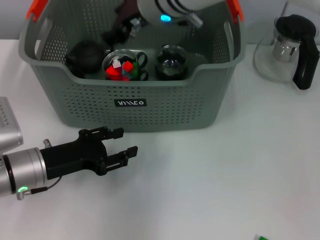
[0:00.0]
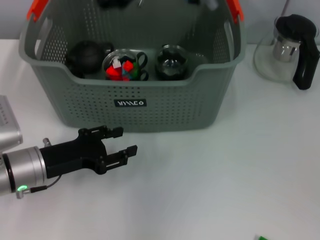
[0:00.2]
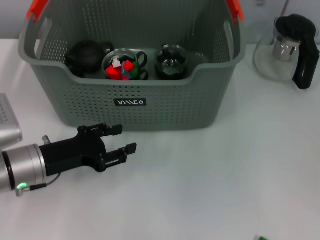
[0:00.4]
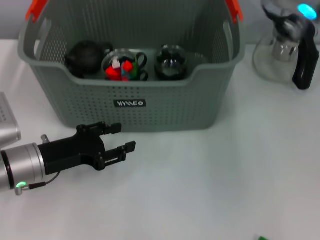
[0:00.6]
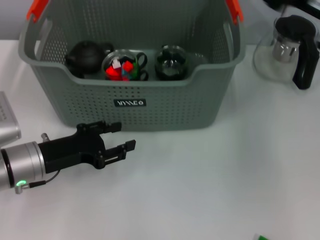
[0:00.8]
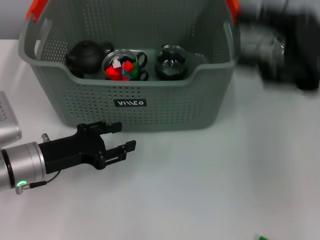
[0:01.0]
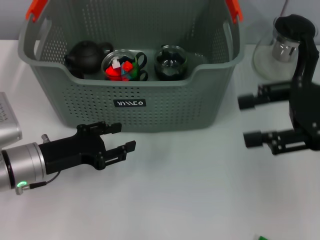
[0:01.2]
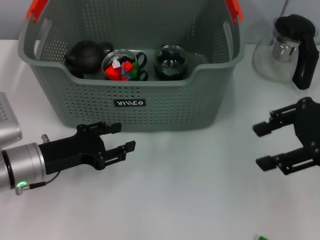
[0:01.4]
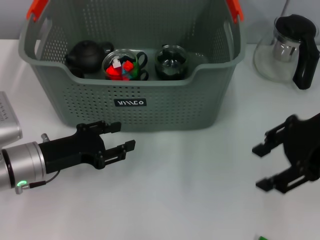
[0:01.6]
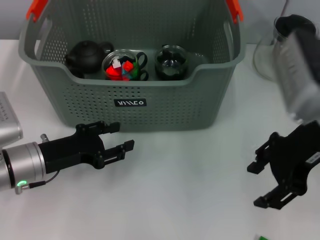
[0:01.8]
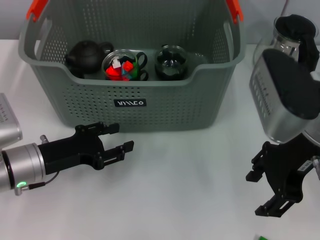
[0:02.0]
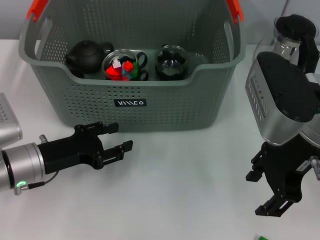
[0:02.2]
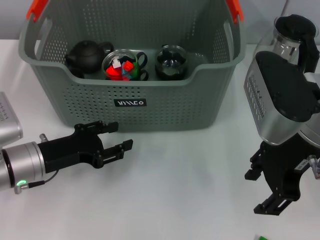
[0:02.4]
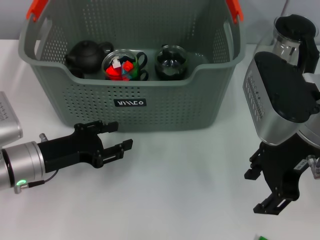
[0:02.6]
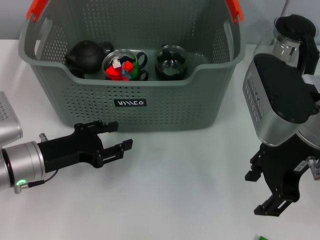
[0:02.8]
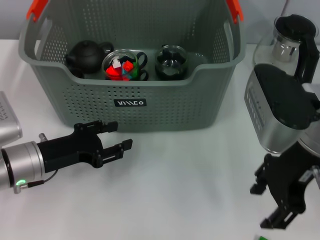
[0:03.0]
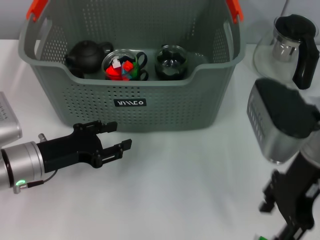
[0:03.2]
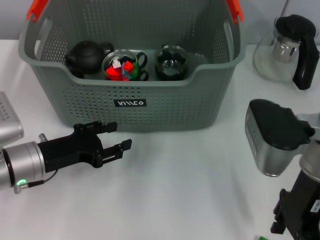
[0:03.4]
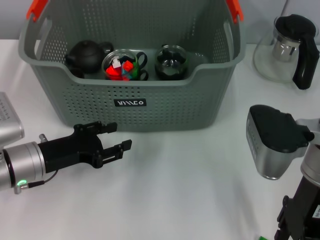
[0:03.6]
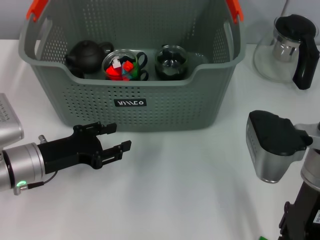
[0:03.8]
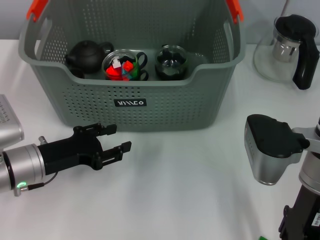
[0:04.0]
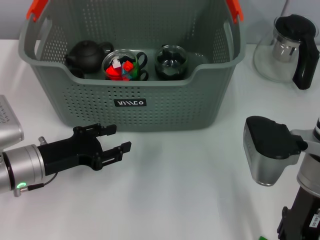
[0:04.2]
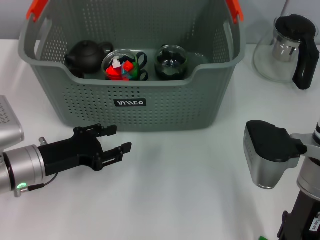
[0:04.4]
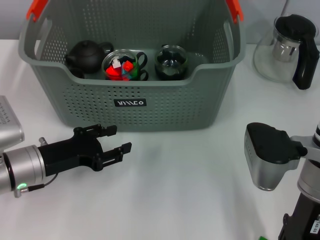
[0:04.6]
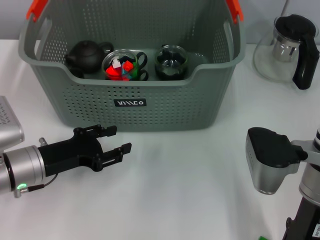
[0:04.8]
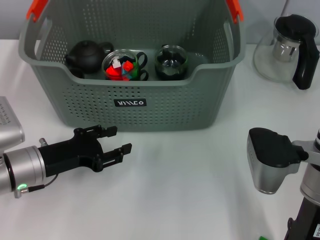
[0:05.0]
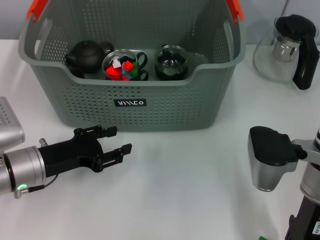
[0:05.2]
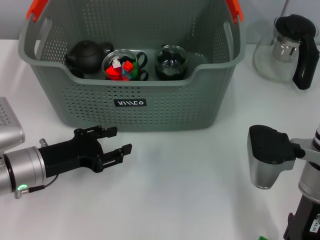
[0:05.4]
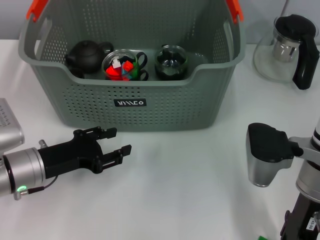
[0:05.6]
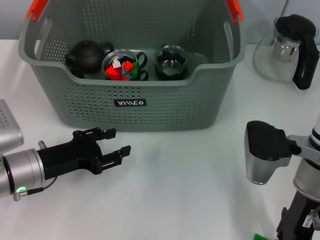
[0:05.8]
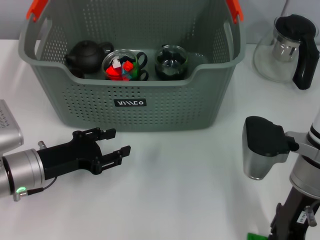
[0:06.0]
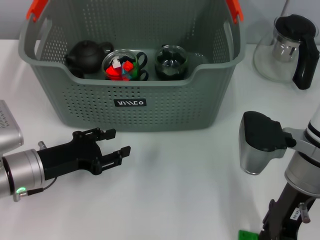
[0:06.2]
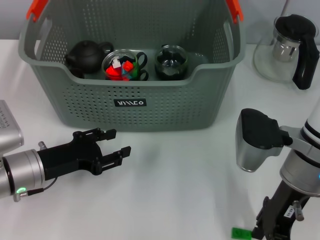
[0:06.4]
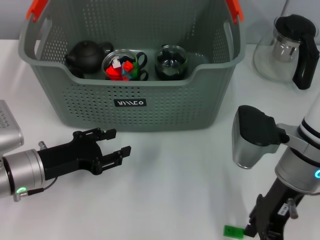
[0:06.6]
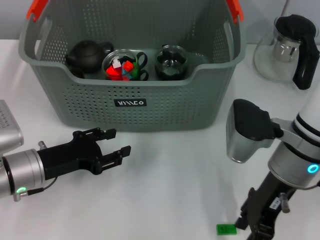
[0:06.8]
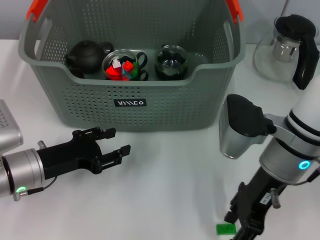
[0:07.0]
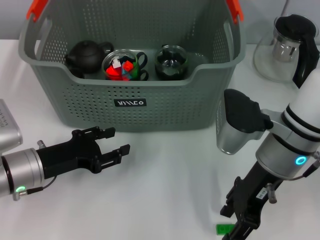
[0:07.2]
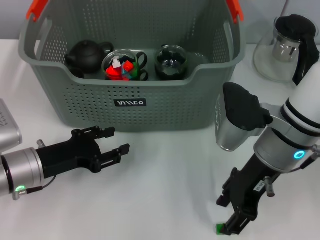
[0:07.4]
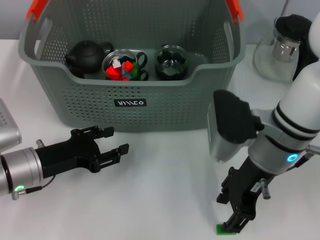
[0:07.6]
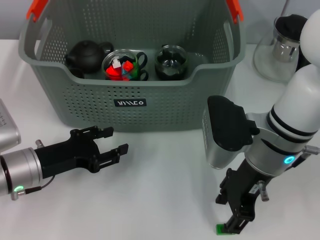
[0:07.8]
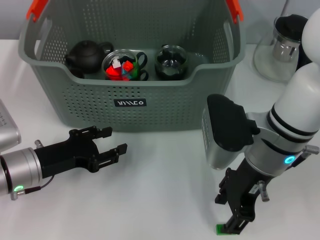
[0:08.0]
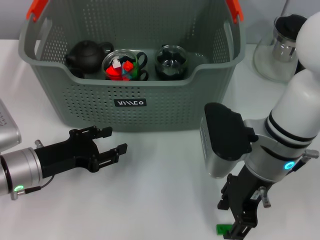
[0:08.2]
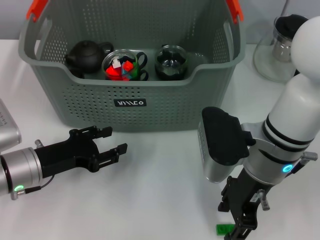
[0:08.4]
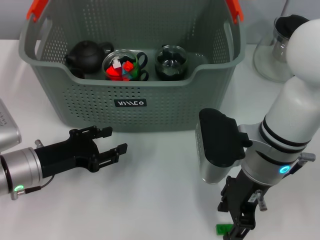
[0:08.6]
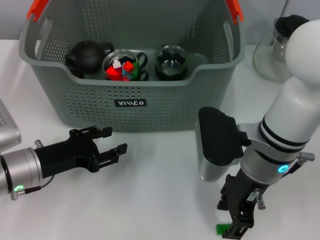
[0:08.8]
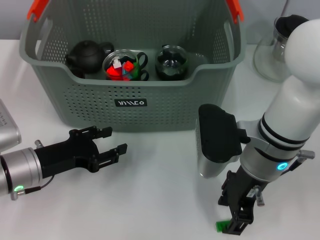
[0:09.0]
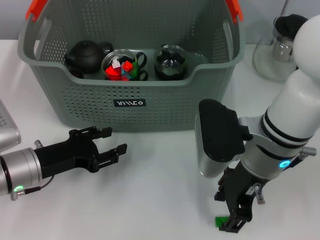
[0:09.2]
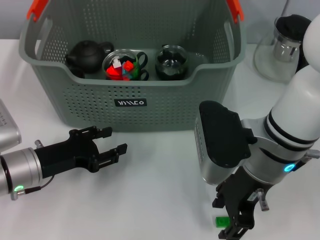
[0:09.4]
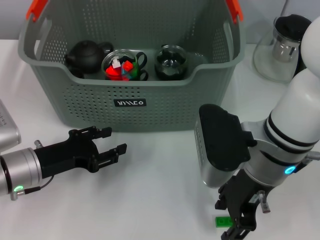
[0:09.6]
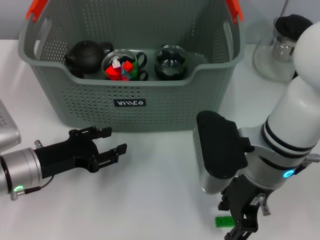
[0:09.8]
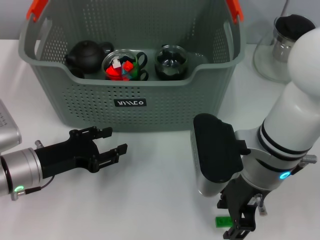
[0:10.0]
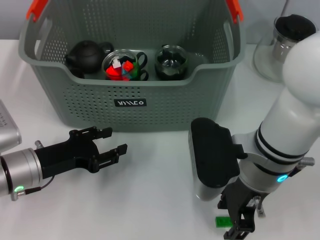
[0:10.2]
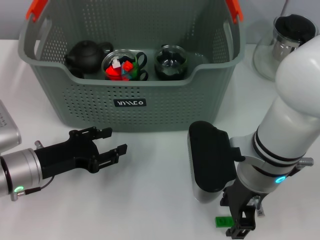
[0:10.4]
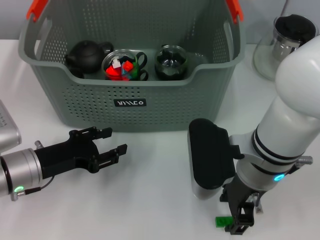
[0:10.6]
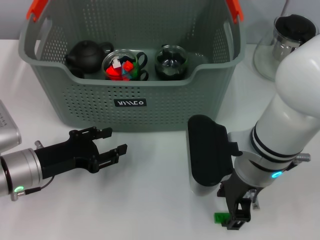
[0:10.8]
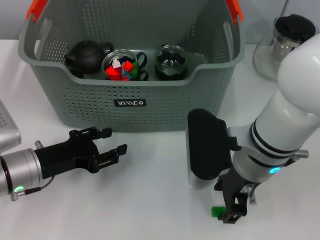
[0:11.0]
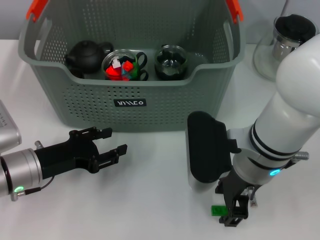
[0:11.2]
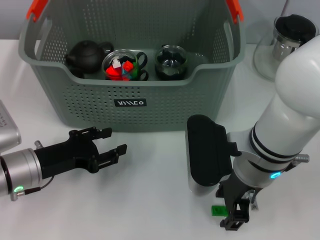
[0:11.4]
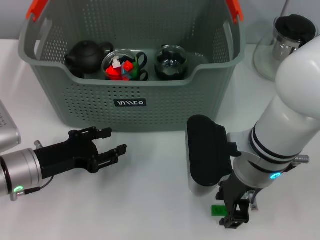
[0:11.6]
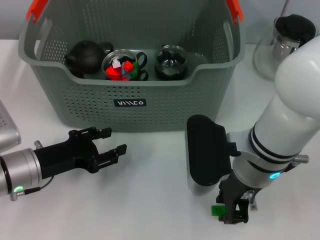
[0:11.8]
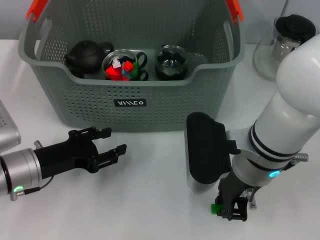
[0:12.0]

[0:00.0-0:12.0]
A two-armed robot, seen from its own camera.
Task of the whole recording: pick up the teacup on the table and place it into the storage bin, pick up the block on the table and place it into the storage bin.
0:00.0 to 0:01.6: The right gripper travels to the right and backward by some 25 cm, and opens.
0:01.6 to 0:03.0: The right gripper travels to the left by some 5 cm.
0:03.0 to 0:04.4: The right gripper travels downward by some 5 cm.
0:04.4 to 0:06.0: The grippers move only a little.
0:06.0 to 0:07.6: The right gripper shifts by approximately 5 cm.
0:07.6 to 0:12.0: The grippers make only small movements.

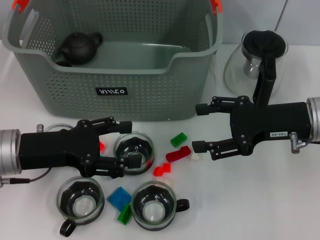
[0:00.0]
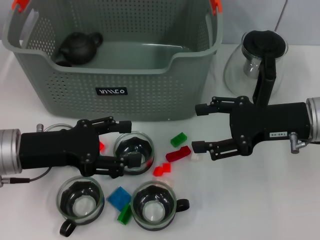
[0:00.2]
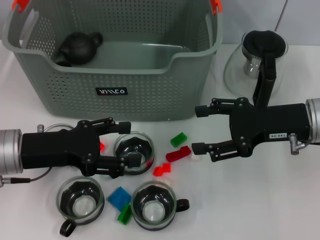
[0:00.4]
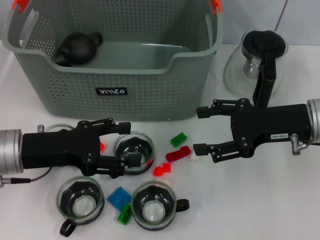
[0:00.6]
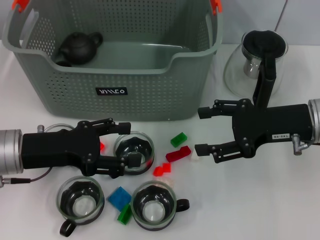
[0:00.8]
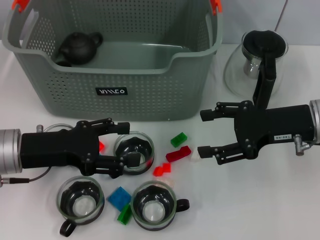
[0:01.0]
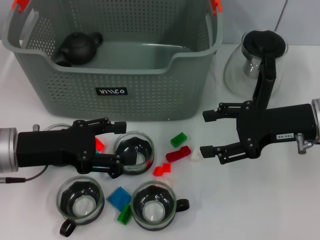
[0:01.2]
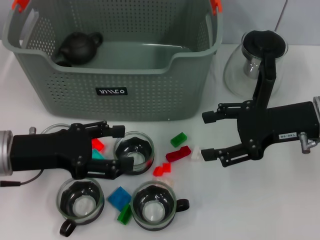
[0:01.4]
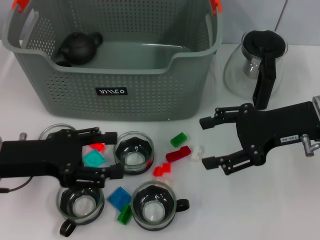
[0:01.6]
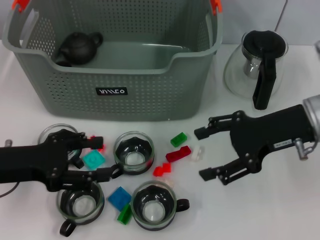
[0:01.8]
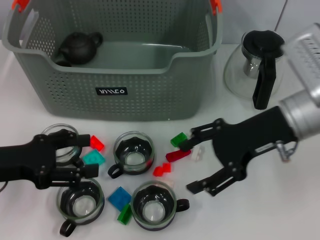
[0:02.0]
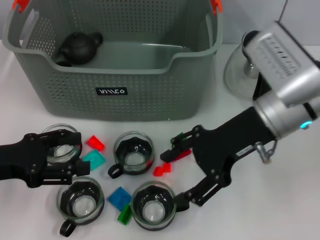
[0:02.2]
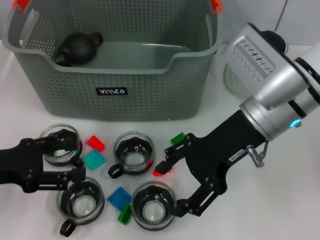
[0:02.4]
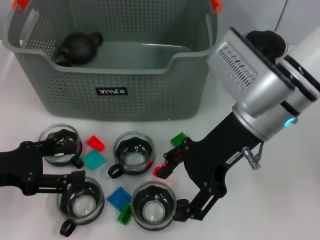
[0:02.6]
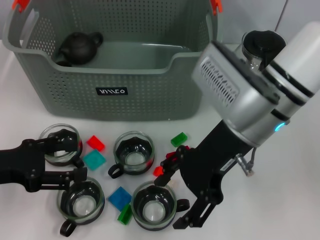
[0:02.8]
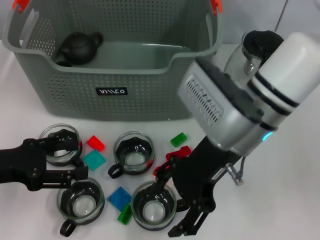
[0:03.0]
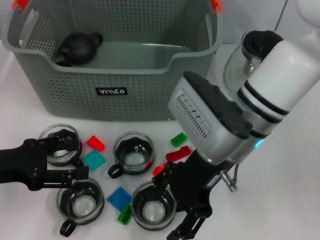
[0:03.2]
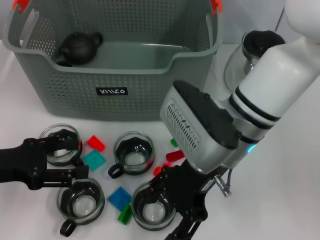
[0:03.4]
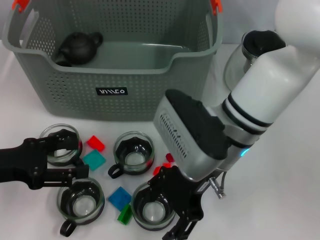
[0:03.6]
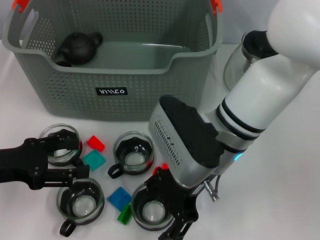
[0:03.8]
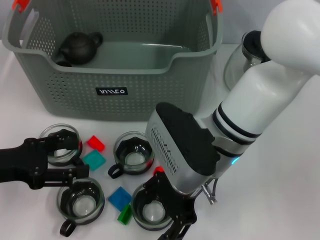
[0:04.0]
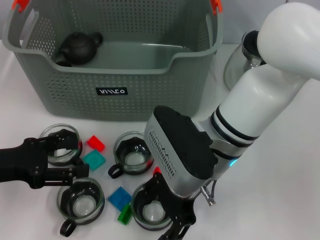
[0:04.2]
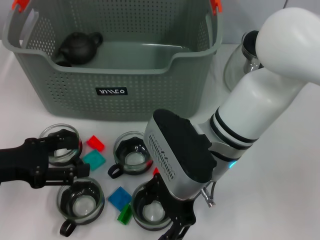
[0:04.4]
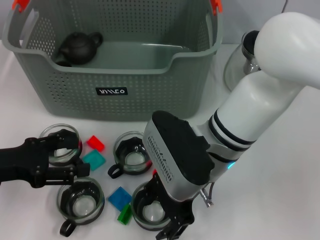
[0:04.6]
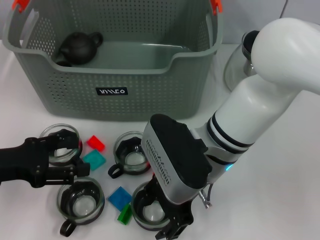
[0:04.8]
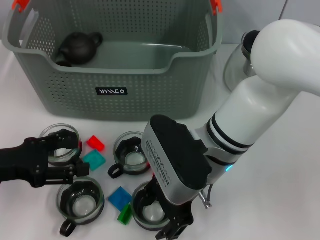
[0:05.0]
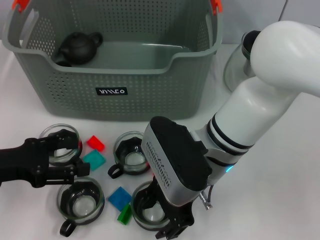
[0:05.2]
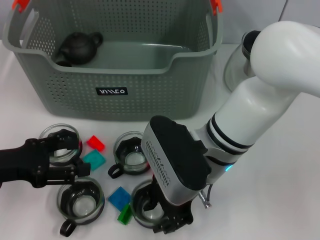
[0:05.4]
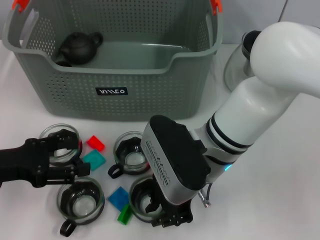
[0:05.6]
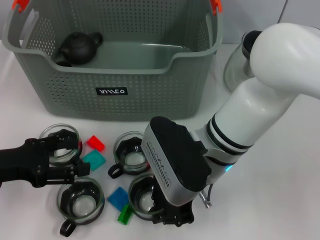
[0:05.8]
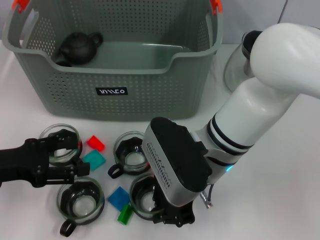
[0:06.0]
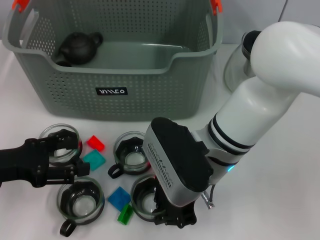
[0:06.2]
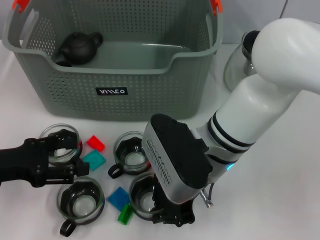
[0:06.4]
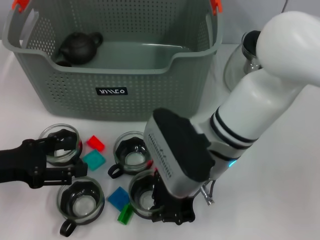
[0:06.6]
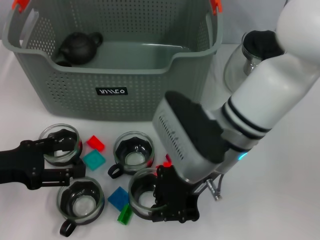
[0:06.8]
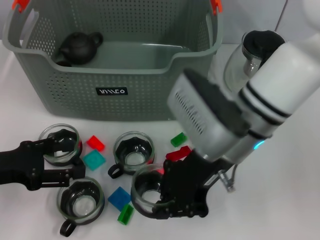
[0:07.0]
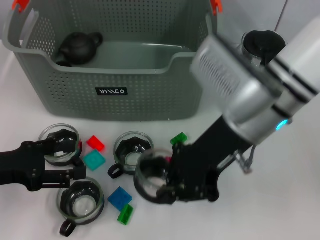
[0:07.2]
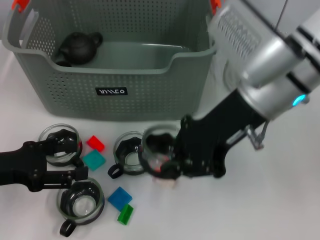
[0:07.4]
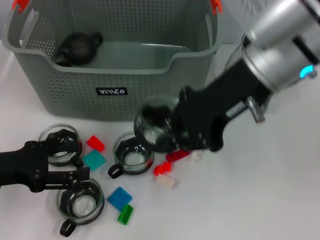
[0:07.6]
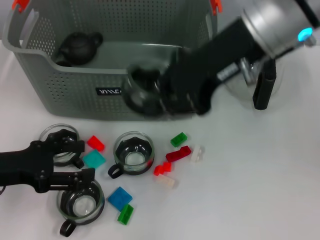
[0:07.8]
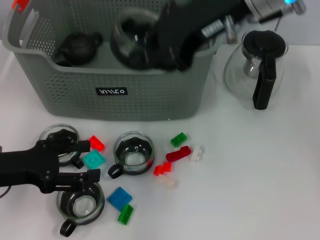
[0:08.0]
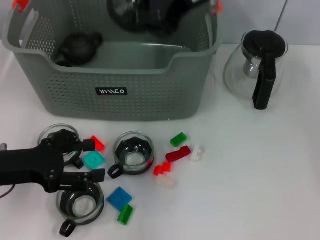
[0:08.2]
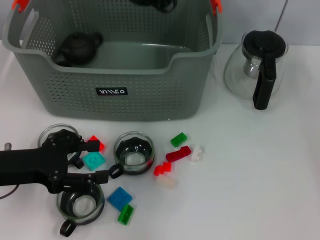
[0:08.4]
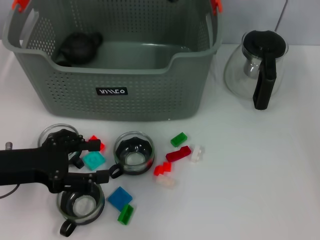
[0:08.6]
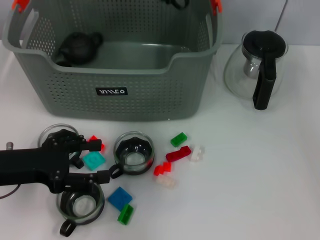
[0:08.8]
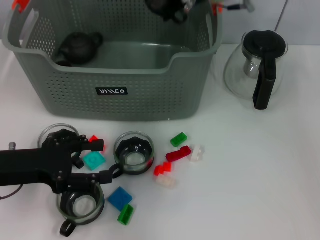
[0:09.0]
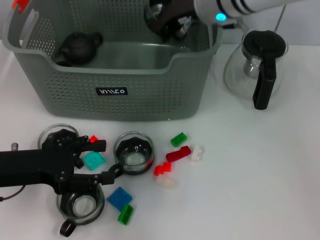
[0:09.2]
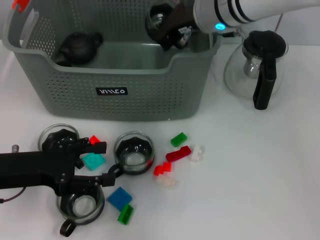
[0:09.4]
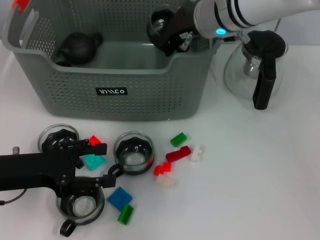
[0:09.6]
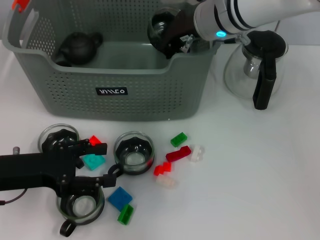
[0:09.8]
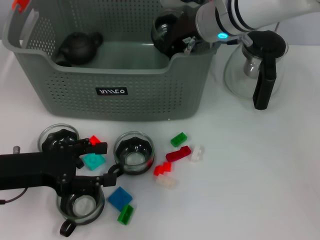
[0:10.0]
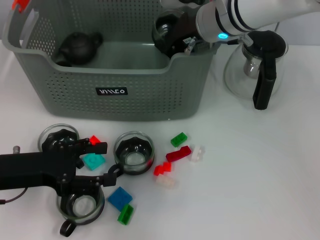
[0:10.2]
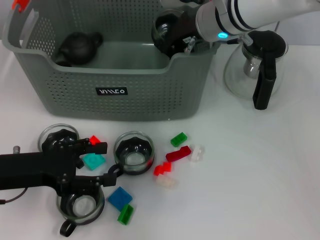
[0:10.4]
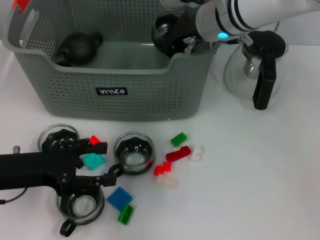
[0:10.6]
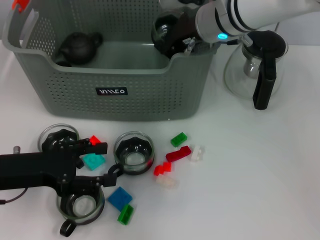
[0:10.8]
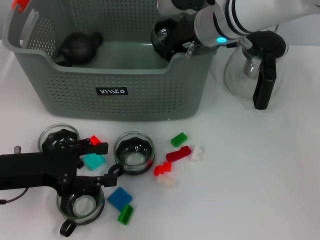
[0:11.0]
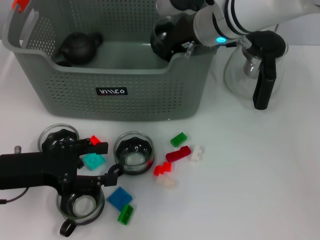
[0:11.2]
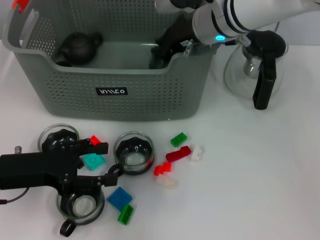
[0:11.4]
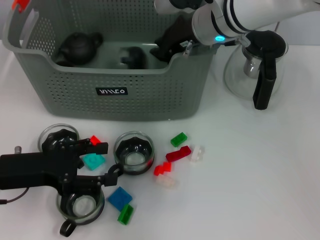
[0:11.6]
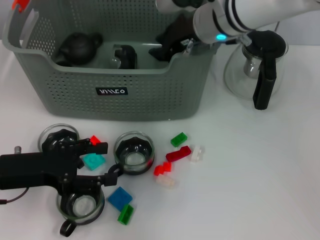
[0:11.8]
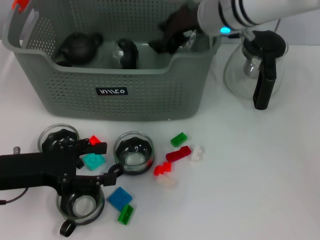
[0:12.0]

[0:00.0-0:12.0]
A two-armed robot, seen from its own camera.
Task of the whole recording: pick up the teacup on the table and place it into the storage bin, pick up the block on the table and place it into the storage bin.
Step, 0:00.0 to 0:05.8: Grasp the cup with right gripper.
Step, 0:06.0 to 0:12.0: Place the cup in the storage box with right gripper.
0:00.0 to 0:01.6: There are only small adjustments of the grippers.
0:01.6 to 0:03.0: The right gripper goes roughly 15 cm to the left; the left gripper moves about 5 cm.
0:03.0 to 0:04.4: The right gripper moves roughly 5 cm.
0:04.4 to 0:06.0: The right gripper closes its fingers.
0:06.0 to 0:07.6: The right gripper travels upward and to the right by roughly 15 cm.
0:07.6 to 0:09.0: The right gripper moves forward, some 15 cm.
0:09.0 to 0:10.4: The grippers move only a little.
0:10.4 to 0:12.0: Both grippers stay about where they are.
